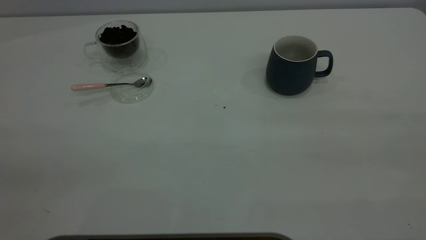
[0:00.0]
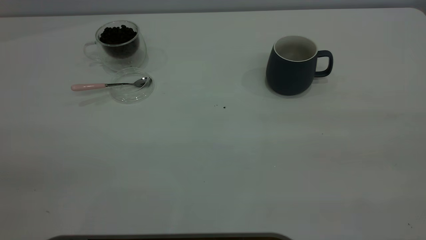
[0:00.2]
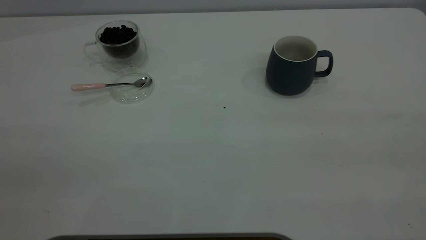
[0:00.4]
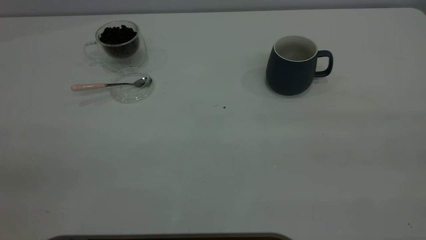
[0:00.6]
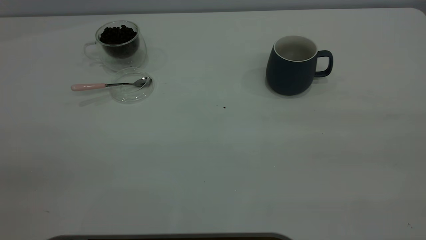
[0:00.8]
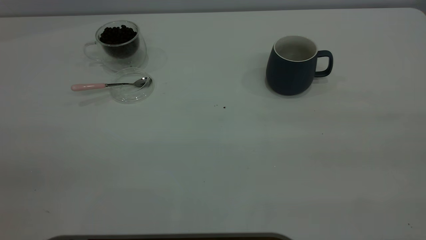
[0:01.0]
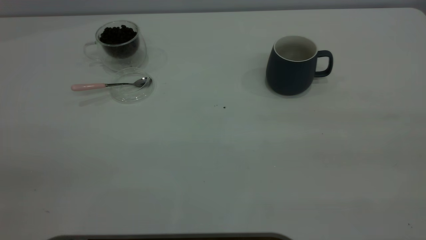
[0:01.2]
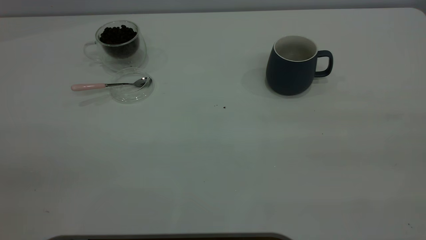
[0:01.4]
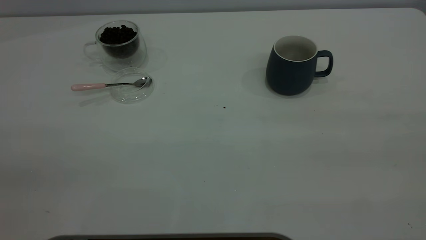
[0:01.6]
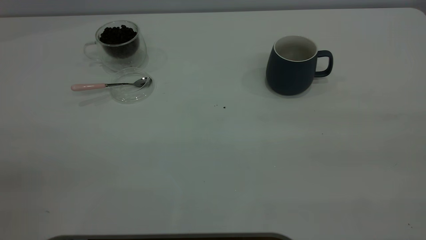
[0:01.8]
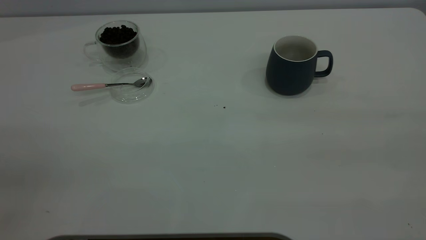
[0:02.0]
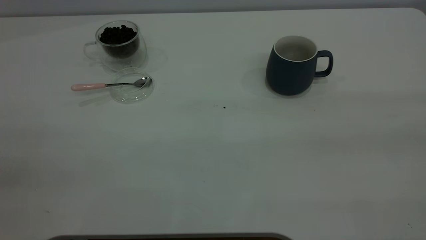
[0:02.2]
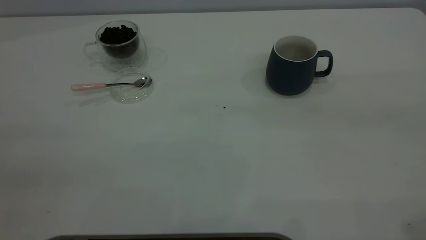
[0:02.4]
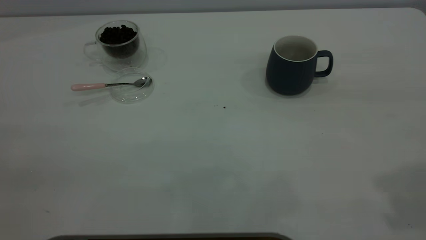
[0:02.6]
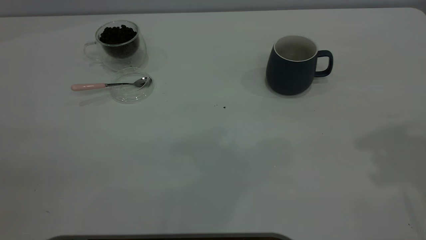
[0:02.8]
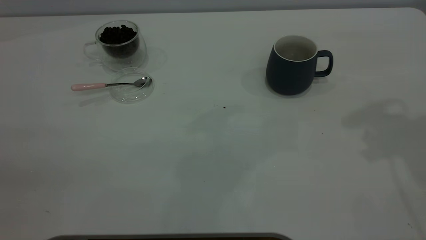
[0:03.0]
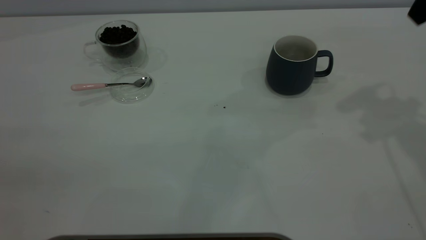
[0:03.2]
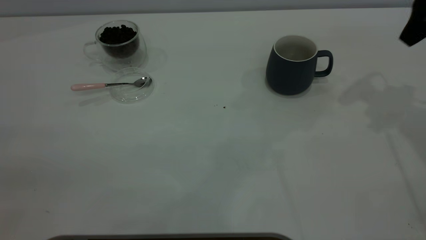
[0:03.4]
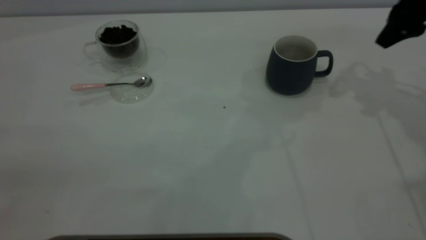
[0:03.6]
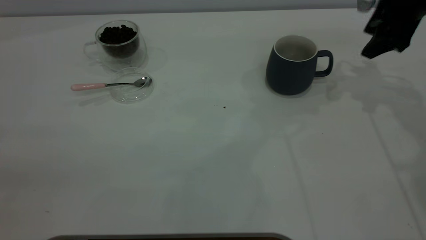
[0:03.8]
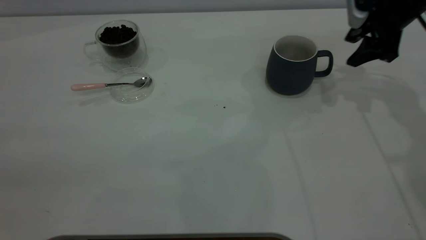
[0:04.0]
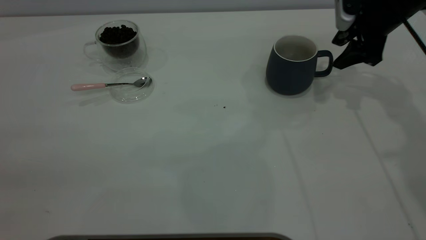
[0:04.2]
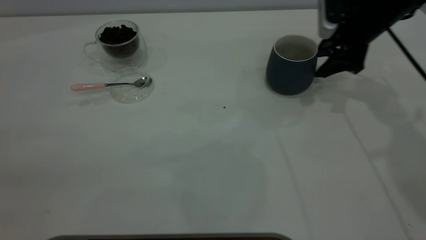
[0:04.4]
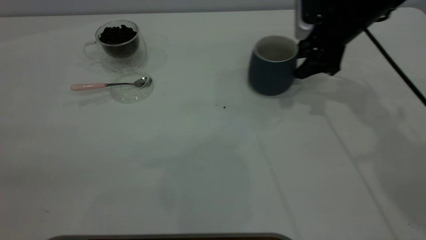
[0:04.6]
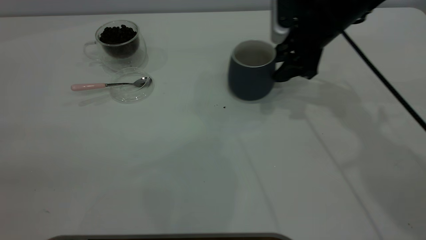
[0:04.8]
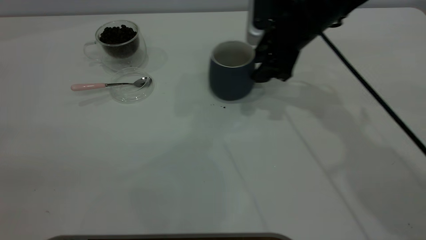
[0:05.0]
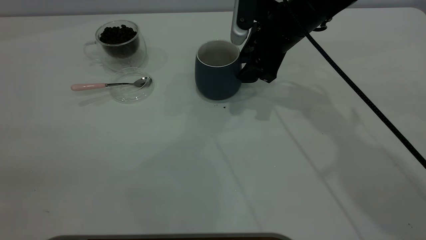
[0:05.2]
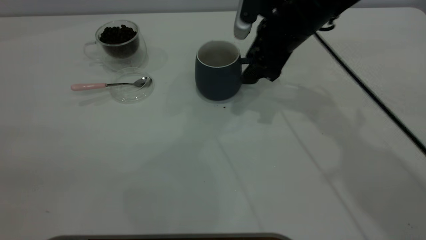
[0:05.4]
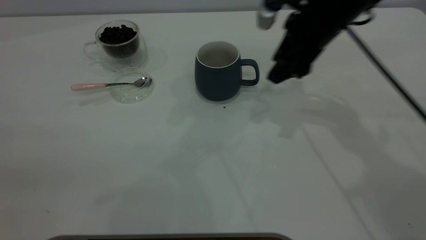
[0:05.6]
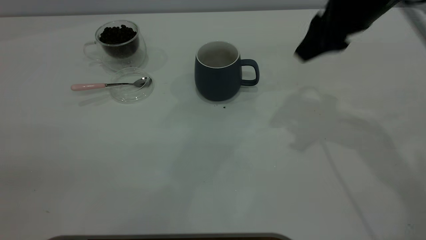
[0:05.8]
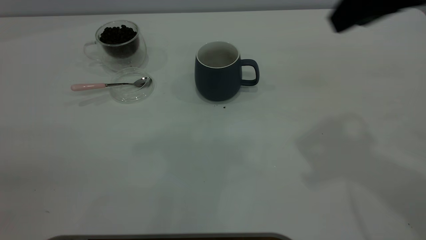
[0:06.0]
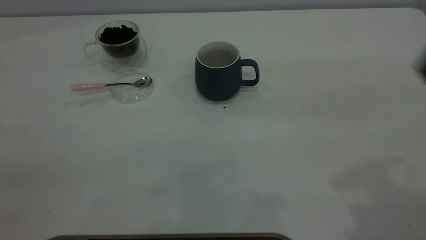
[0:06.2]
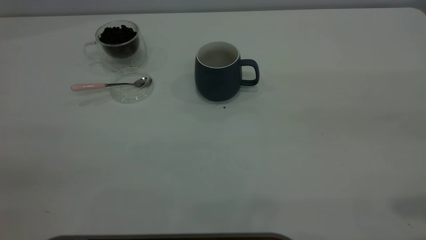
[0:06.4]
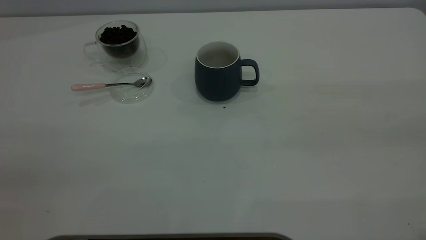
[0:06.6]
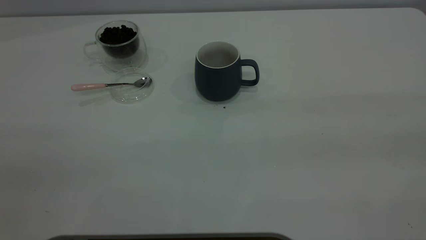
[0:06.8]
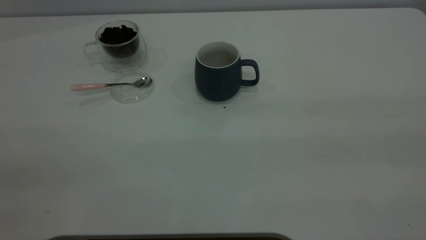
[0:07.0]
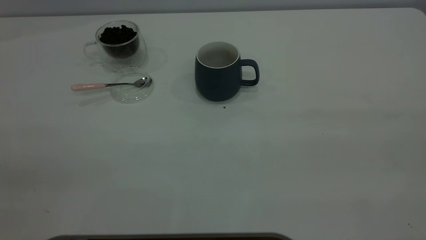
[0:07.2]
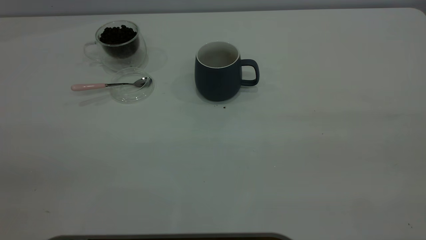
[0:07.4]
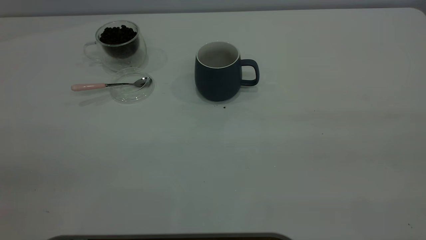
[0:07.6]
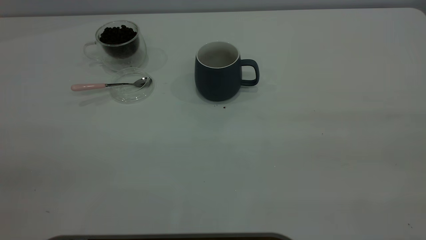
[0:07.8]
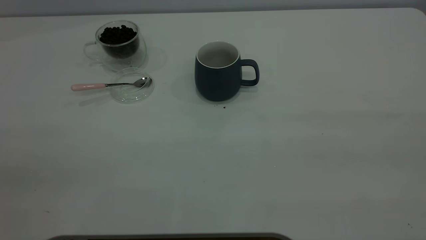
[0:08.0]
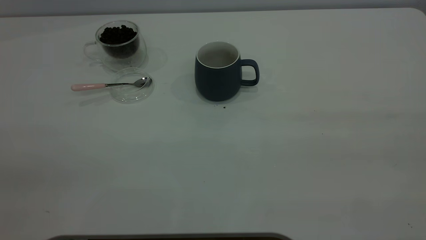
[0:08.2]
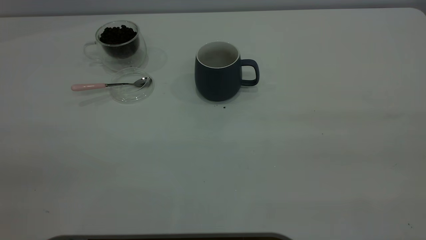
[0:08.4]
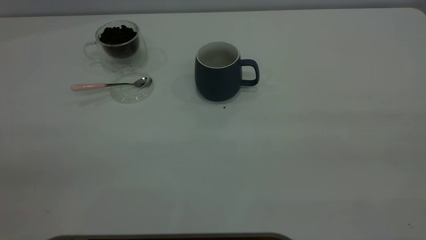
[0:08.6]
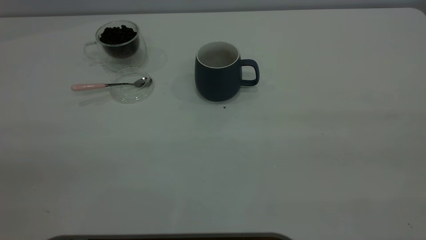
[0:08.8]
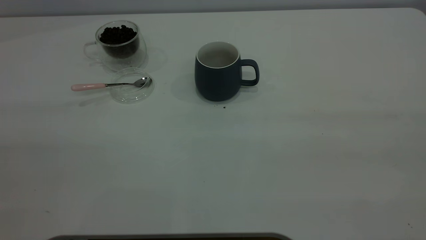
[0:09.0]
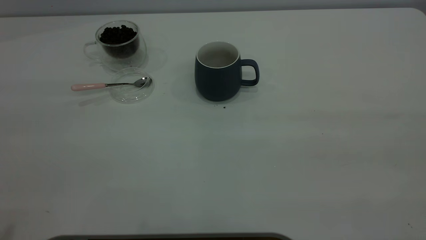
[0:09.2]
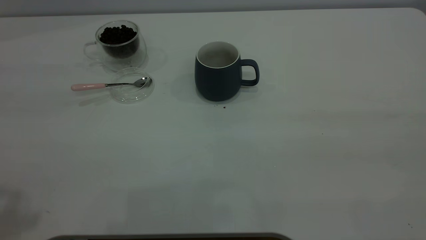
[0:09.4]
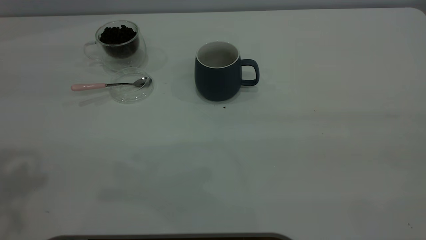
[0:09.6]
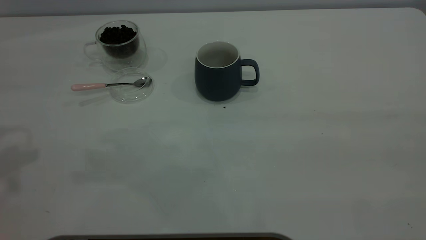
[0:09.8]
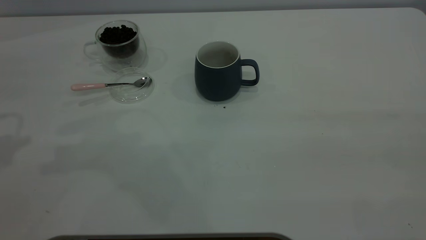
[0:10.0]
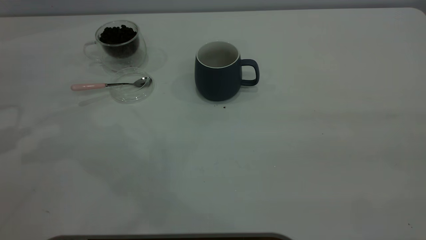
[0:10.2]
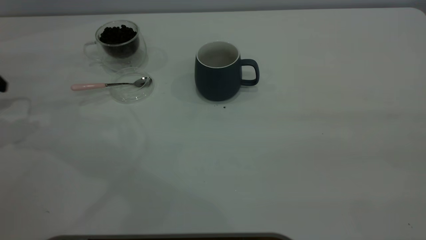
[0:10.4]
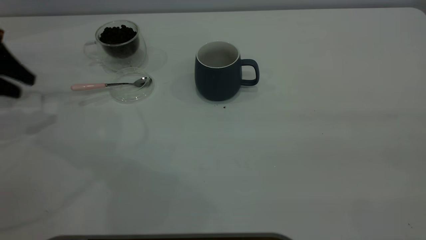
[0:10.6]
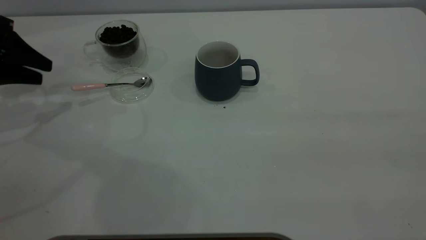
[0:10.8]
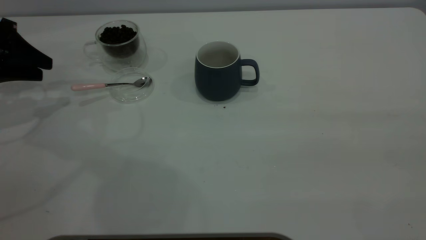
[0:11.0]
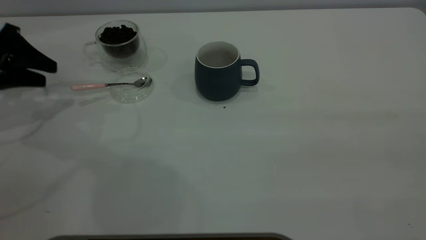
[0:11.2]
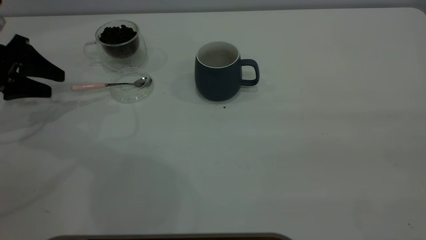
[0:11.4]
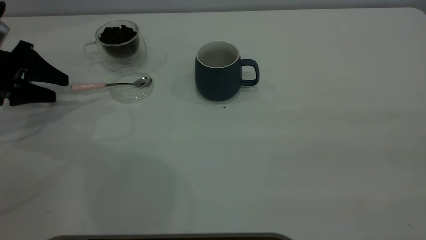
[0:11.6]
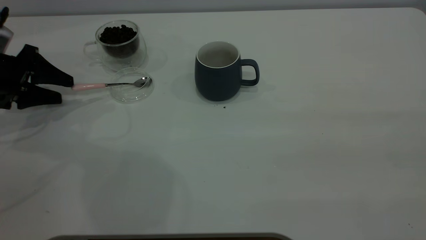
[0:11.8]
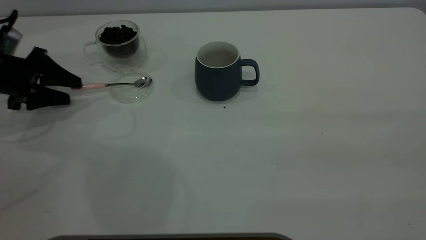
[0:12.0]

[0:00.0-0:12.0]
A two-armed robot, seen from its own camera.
Task of the whole recording: the right gripper place the grey cup in the center of the table, the left gripper take the pink spoon from the cup lid and scoop out the coffee beans from the coffee cup and put them into the grey cup, the left gripper put the spoon back into the cup lid.
Step, 0:00.0 to 0:05.4: Move the cup to the center of view.
0:00.0 to 0:01.6: The two grippers keep their place.
0:03.0 to 0:04.4: The right gripper travels downward and forward by about 25 cm.
0:04.4 to 0:06.0: The right gripper heads backward and upward, covering about 25 cm.
0:06.0 to 0:07.6: The right gripper goes some 25 cm backward.
0:10.4 to 0:12.0: The left gripper is displaced downward by roughly 10 cm.

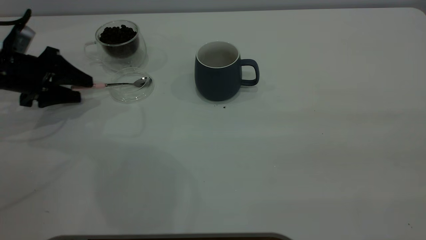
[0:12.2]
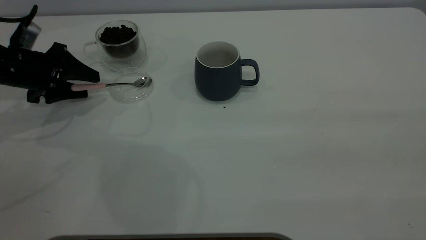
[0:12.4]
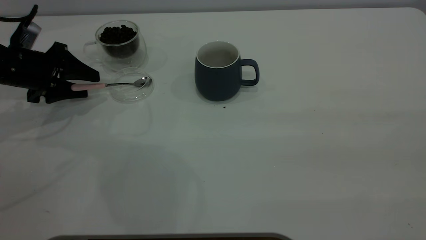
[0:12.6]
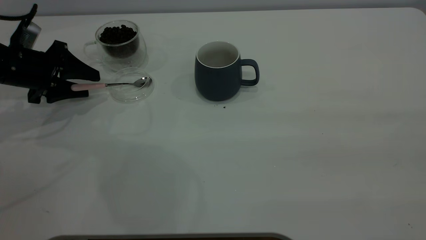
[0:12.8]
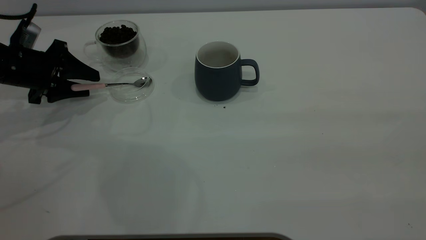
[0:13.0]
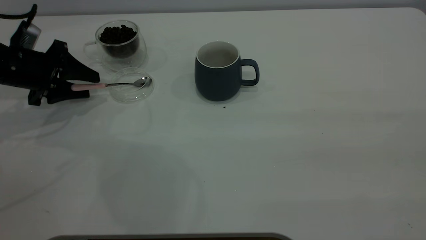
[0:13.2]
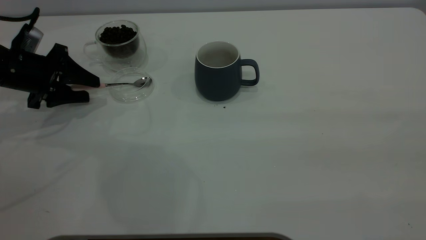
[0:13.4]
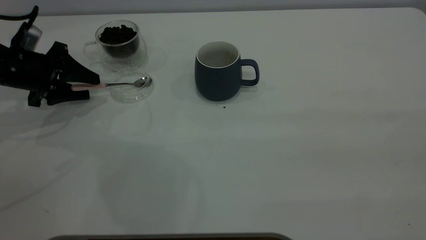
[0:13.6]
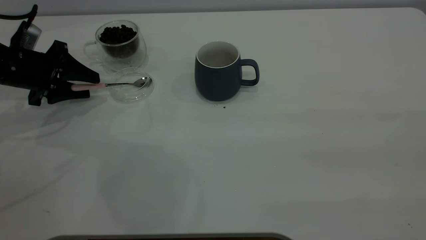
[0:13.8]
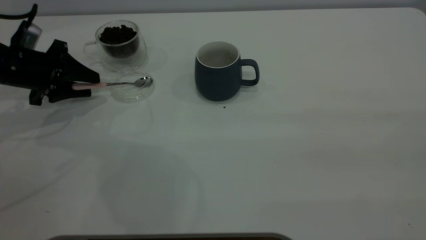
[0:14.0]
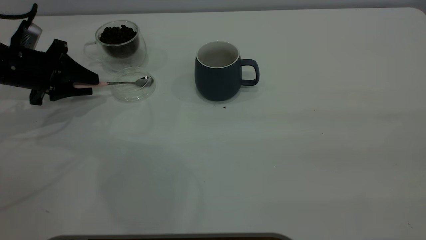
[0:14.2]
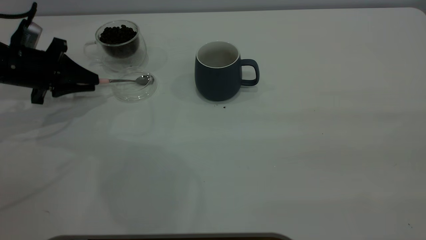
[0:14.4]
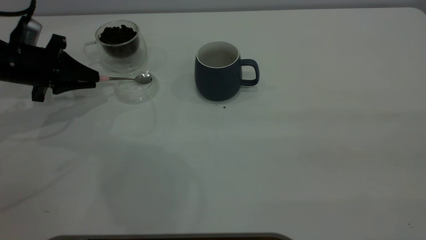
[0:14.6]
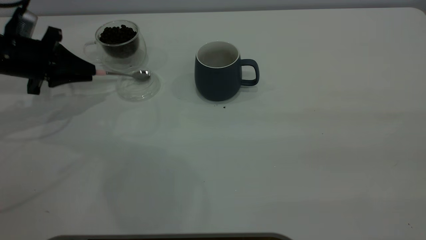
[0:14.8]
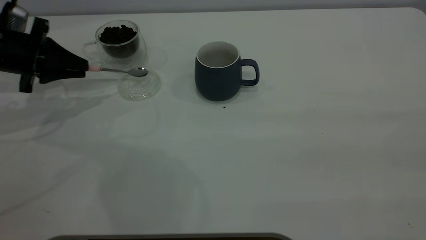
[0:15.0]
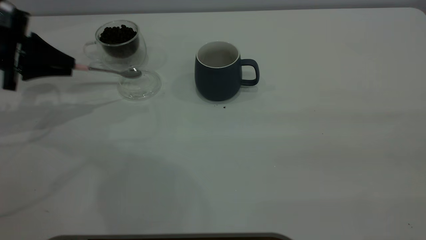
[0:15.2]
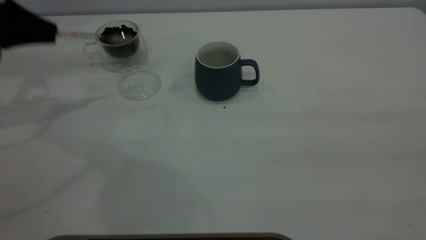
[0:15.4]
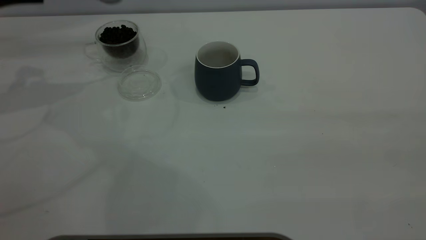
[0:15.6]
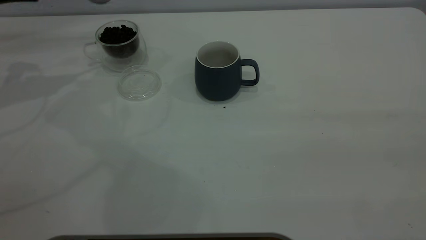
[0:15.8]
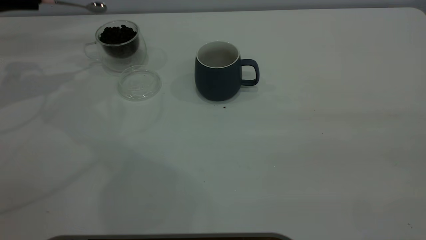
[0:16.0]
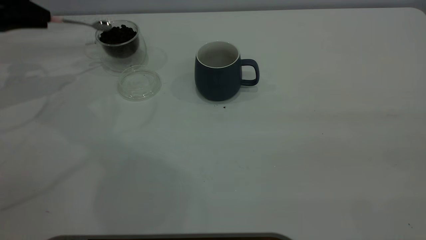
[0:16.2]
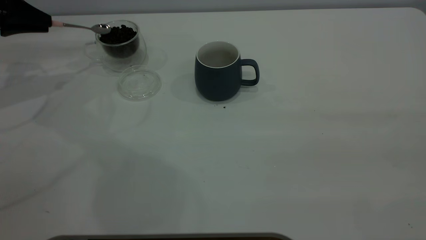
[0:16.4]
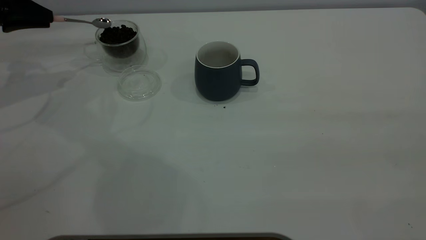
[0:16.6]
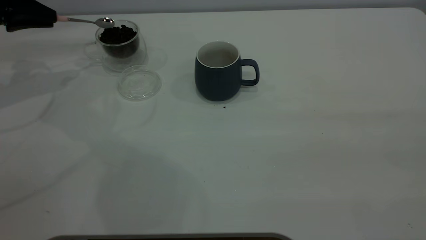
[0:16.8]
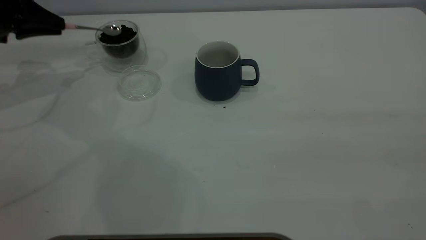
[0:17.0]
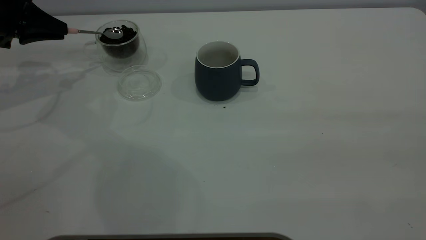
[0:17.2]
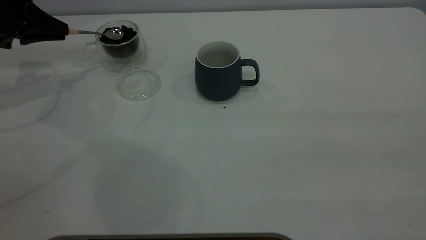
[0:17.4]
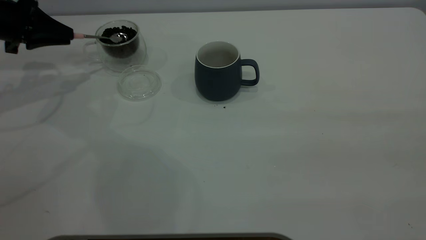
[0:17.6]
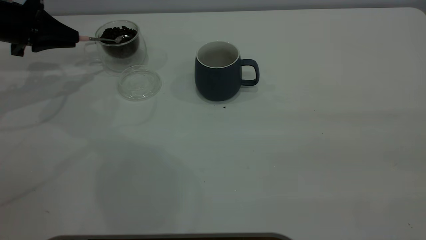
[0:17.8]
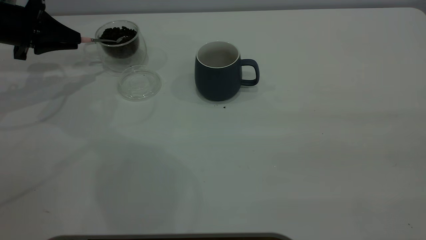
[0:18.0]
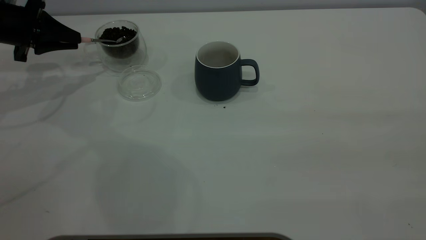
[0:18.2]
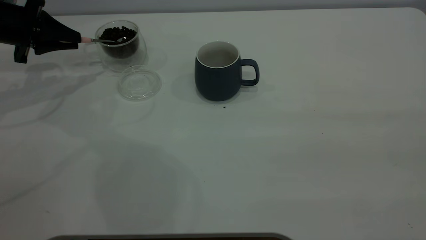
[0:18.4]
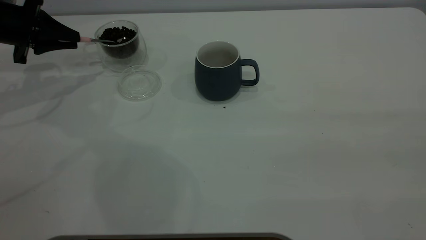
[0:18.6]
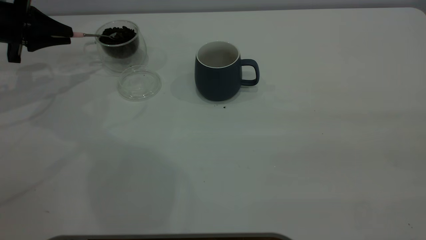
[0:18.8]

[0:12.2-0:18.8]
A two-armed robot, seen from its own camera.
Task of the whole recording: the right gripper place the grey cup in the center of the table, the left gripper take the pink spoon from the cup lid and scoop out the coffee beans from the coffee cup and put them into the grey cup, the left gripper put the spoon back into the cup lid.
Step, 0:12.2 to 0:15.2: Pick up the spoon.
0:12.2 to 0:13.8: The grippers make only small movements.
0:13.8 to 0:15.4: The left gripper is displaced upward by some 10 cm, and closes up.
0:15.4 to 0:17.2: The left gripper changes place by some 5 cm.
0:17.2 to 0:18.8: The grippers move only a little.
